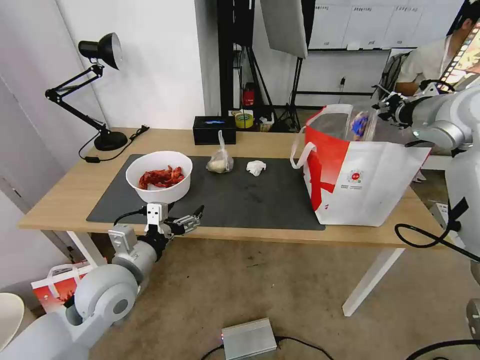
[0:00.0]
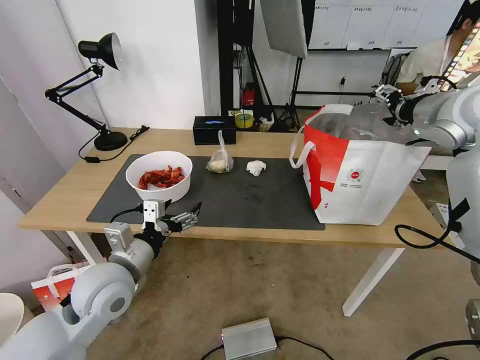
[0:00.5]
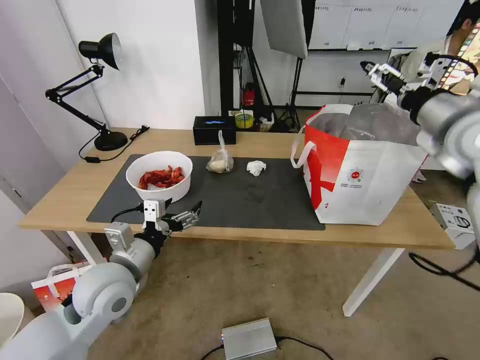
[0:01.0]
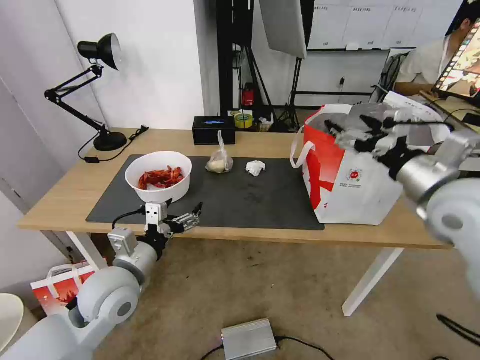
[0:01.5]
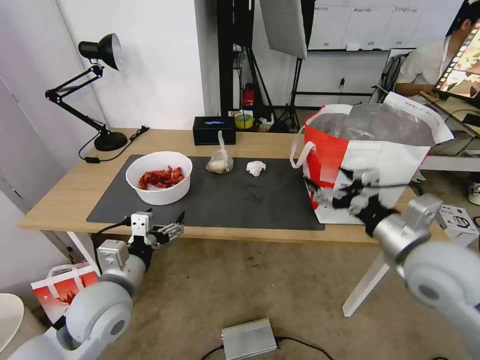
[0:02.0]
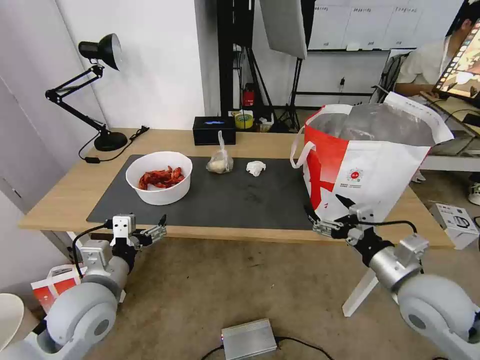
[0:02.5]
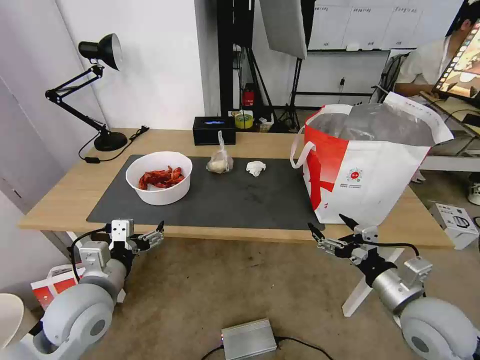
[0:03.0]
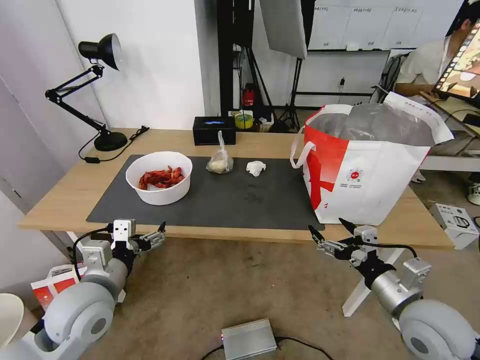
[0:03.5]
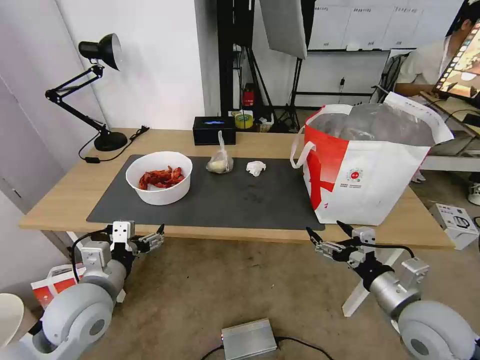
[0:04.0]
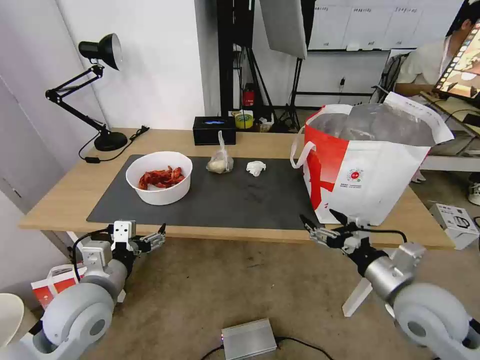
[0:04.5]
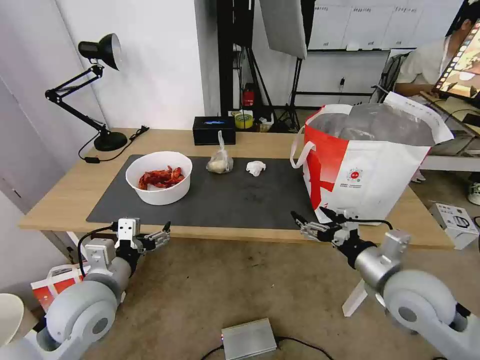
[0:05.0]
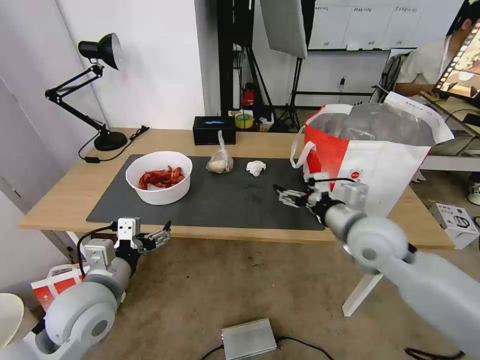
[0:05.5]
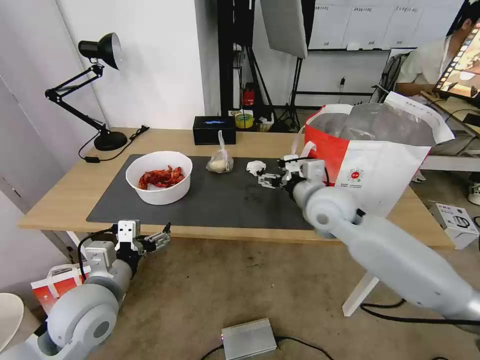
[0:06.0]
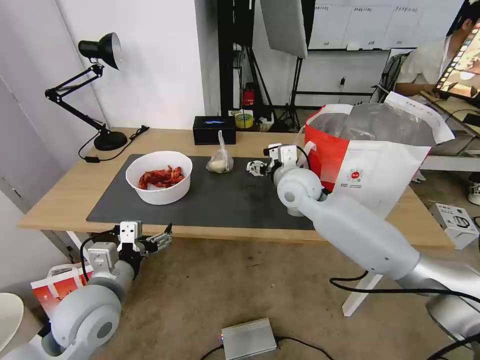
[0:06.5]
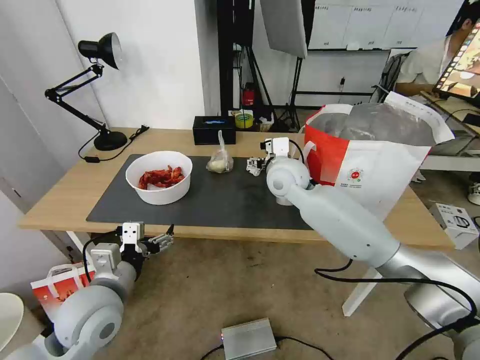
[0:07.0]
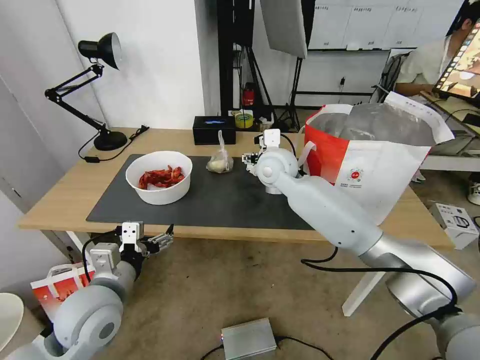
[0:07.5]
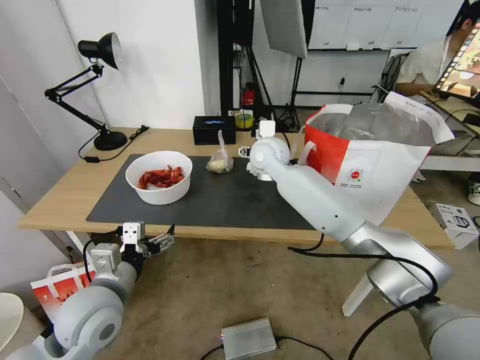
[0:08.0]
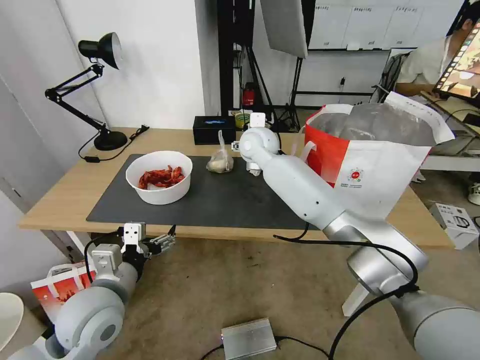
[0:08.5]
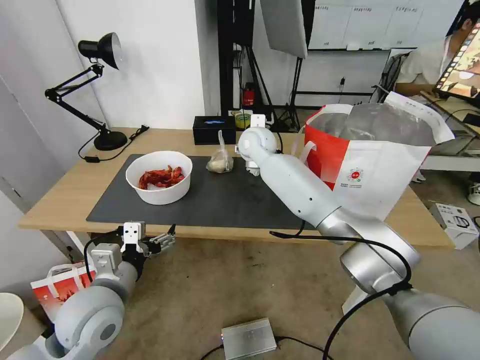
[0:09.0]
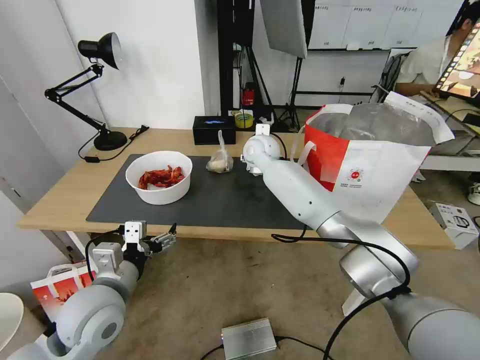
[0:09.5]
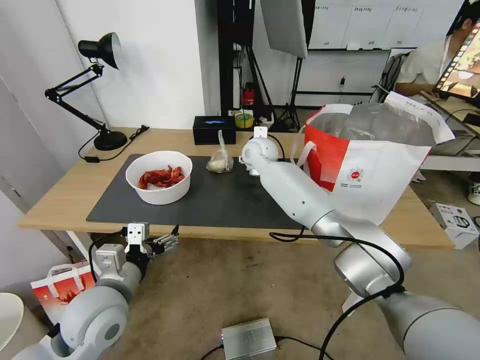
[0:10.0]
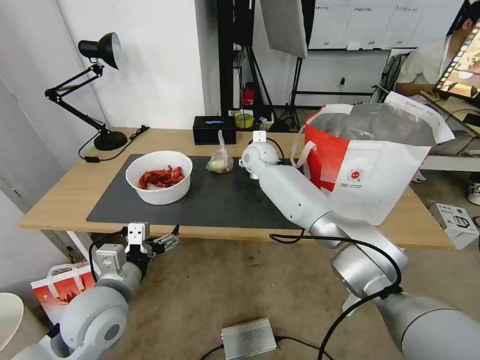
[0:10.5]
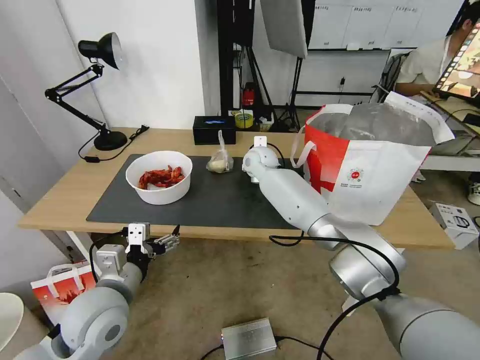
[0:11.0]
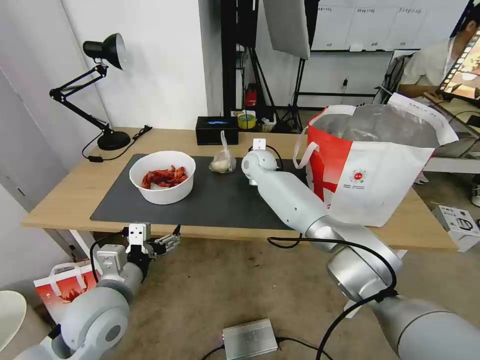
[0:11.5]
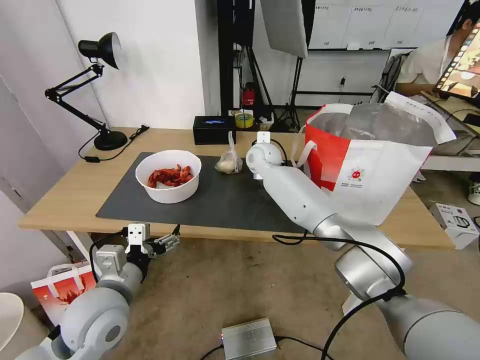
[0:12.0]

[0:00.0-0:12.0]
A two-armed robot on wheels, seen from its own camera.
Task of the whole recording: Pick up the trash from the table and place it into the takeout bag.
0:00.0 to 0:02.0: The right gripper heads backward, downward and to the left, covering roughly 25 cm, and opens up.
0:02.0 to 0:04.0: The right gripper shifts about 15 cm downward and backward.
0:04.0 to 0:06.0: The right gripper travels forward and to the left by some 25 cm.
0:06.0 to 0:08.0: The right gripper moves forward and to the left, some 20 cm.
0:08.0 to 0:10.0: The right gripper heads forward, covering some 5 cm.
0:10.0 to 0:12.0: The right gripper closes its fingers.

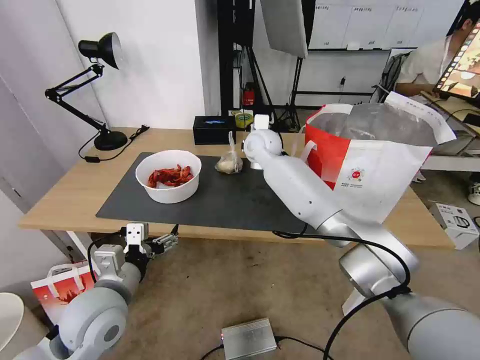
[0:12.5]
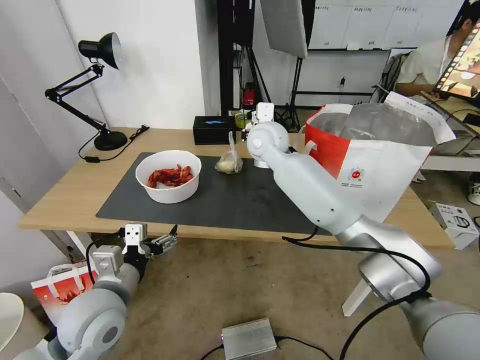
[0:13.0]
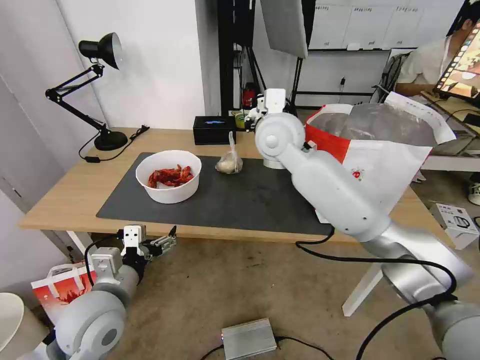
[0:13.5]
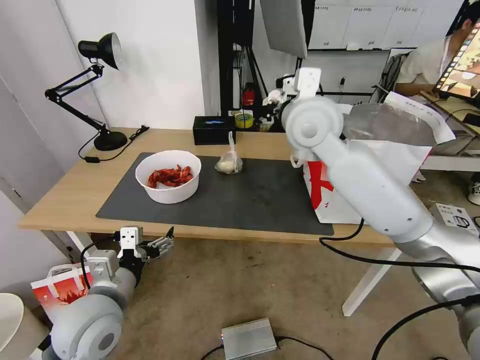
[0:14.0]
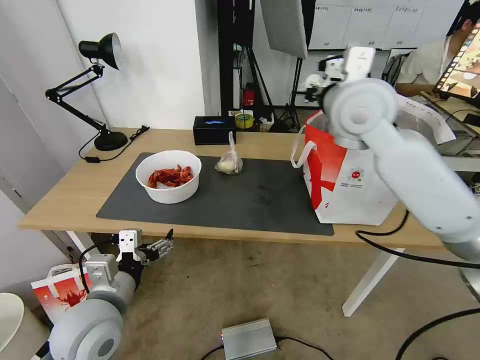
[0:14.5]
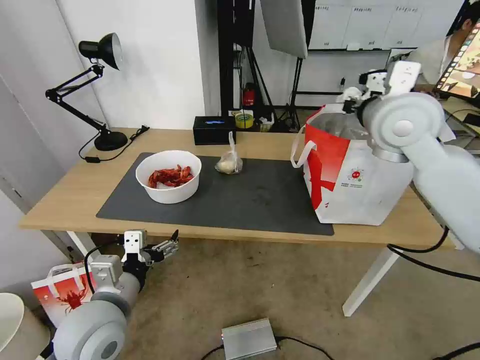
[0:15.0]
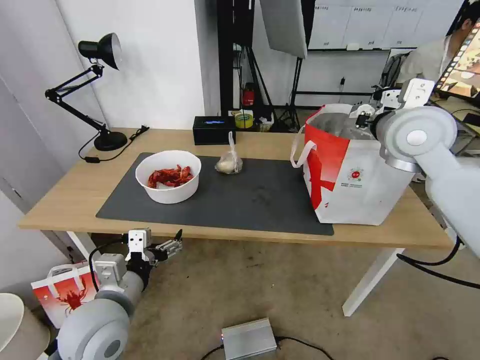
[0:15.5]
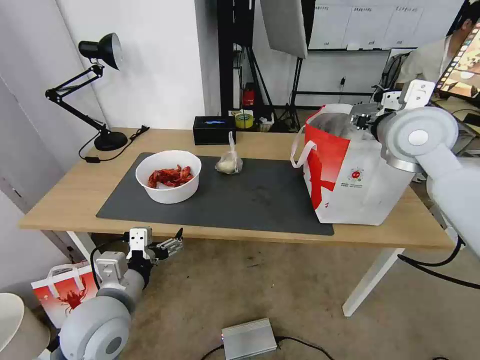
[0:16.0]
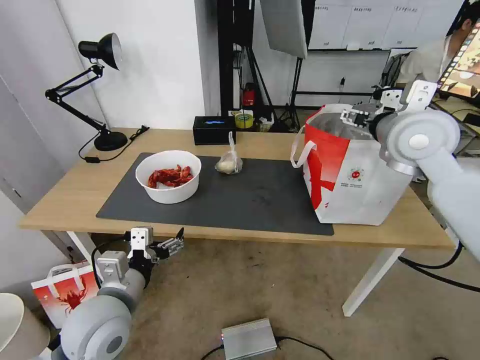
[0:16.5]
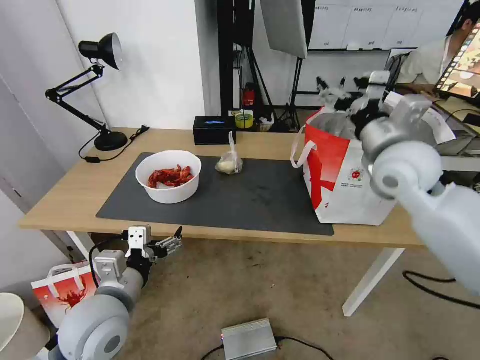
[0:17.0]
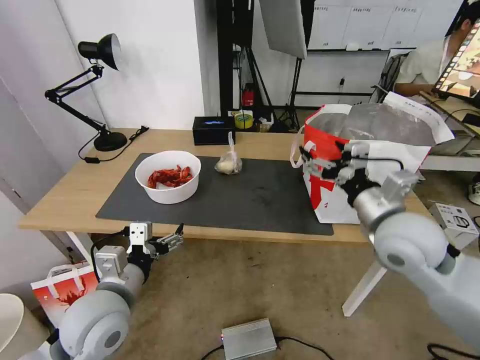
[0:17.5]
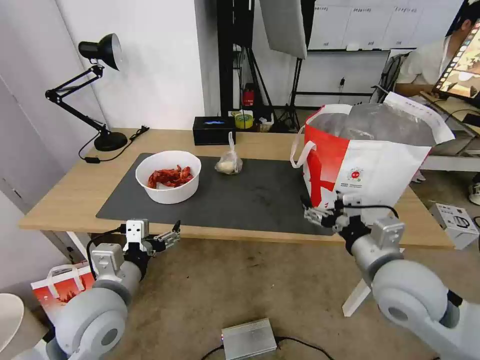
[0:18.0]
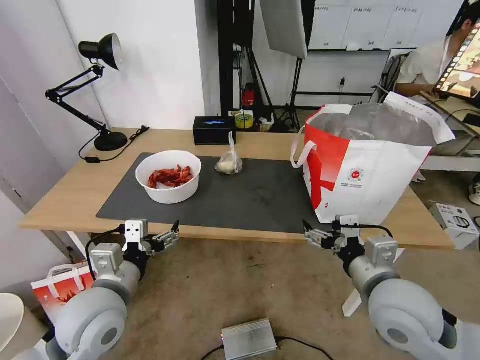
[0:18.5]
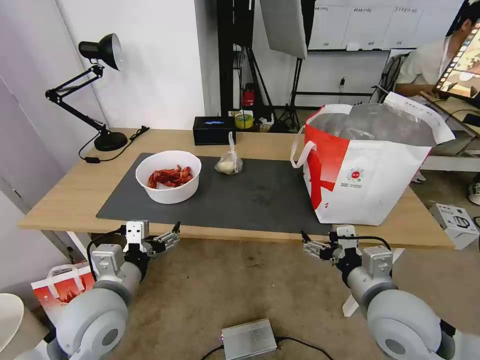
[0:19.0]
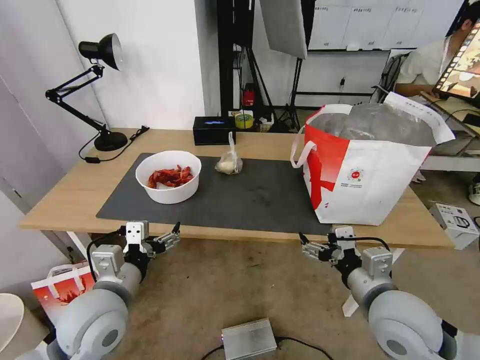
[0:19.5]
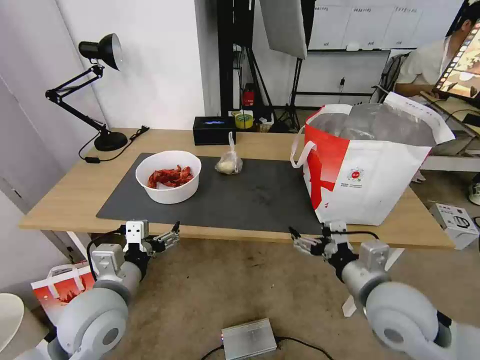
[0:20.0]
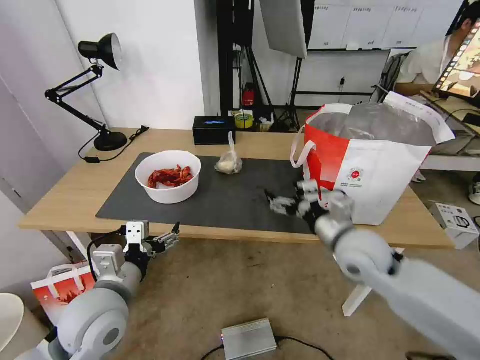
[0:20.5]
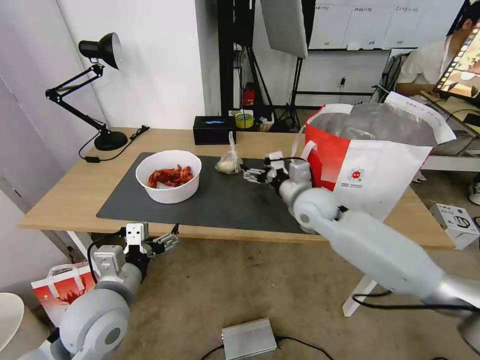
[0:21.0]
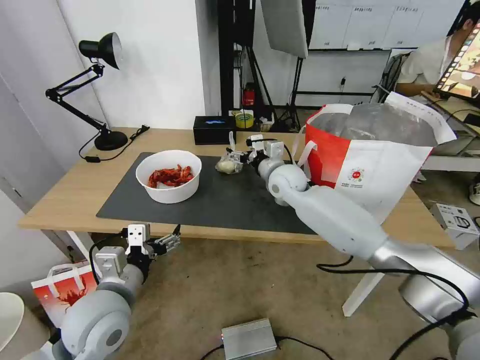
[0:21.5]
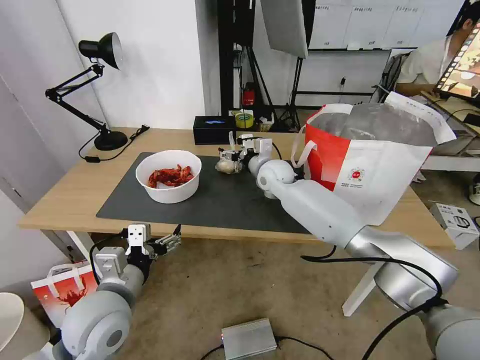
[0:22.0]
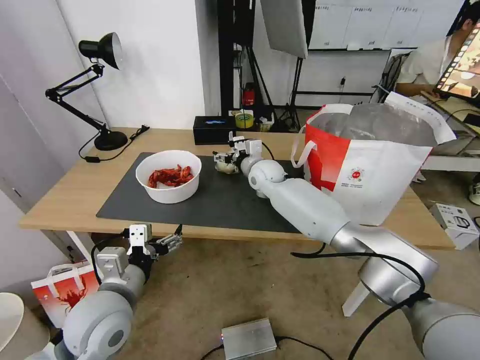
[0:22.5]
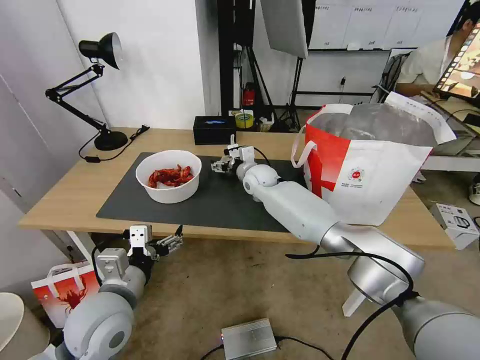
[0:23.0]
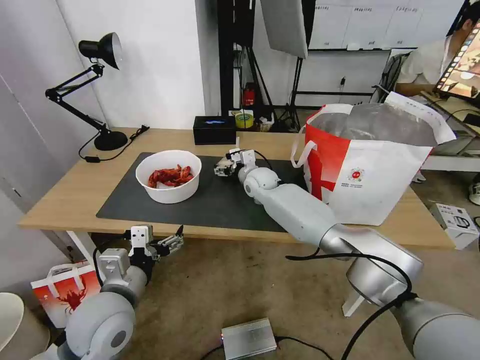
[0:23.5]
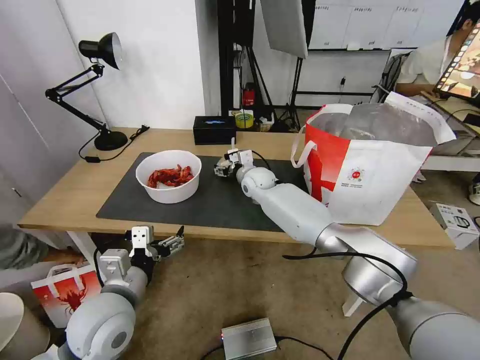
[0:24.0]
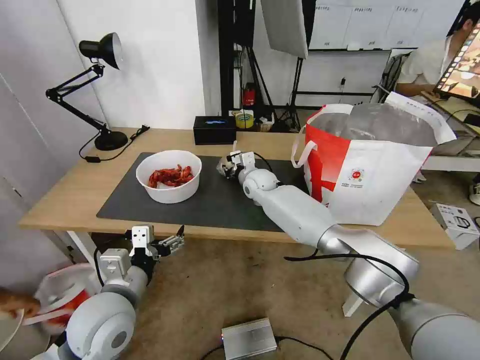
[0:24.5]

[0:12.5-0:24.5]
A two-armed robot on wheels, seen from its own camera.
Task of the whole recording: Pick up the trash from the table and place it into the takeout bag.
0:12.5 to 0:14.5: The right gripper moves upward, backward and to the right, approximately 25 cm.
0:14.5 to 0:16.5: The right gripper moves to the right, approximately 10 cm, and opens its fingers.
0:16.5 to 0:18.5: The right gripper shifts some 30 cm backward and downward.
0:18.5 to 0:20.5: The right gripper travels forward by approximately 10 cm.
0:20.5 to 0:22.5: The right gripper heads forward and to the left, covering roughly 30 cm.
0:22.5 to 0:24.5: The right gripper closes up.

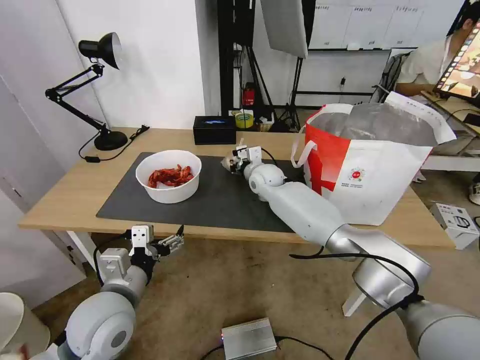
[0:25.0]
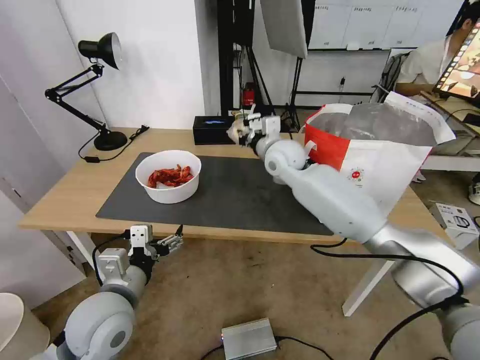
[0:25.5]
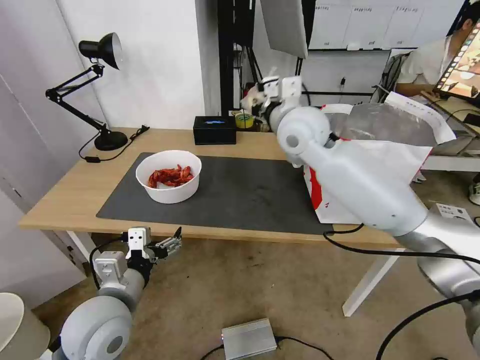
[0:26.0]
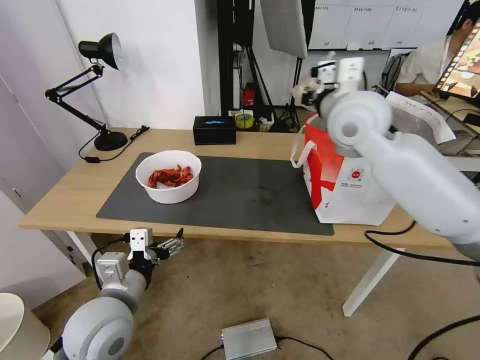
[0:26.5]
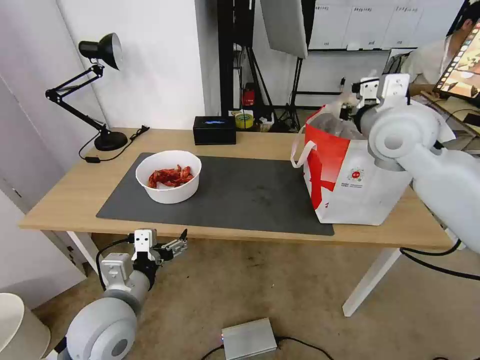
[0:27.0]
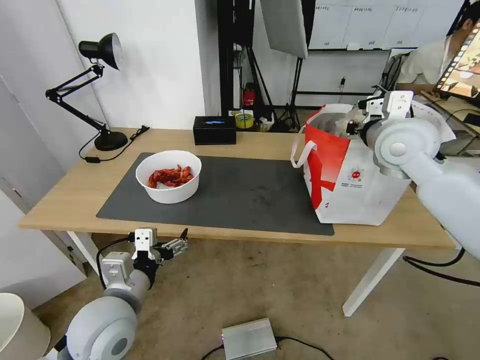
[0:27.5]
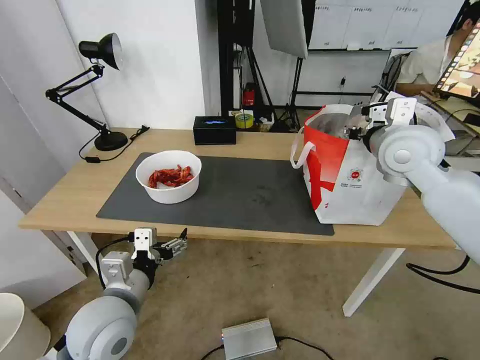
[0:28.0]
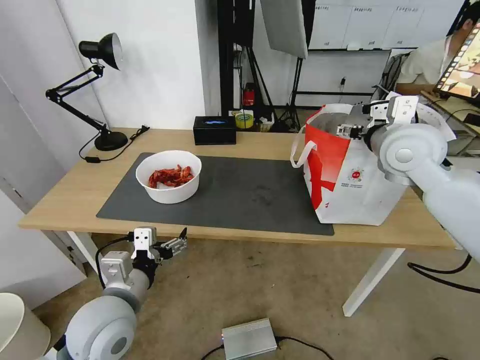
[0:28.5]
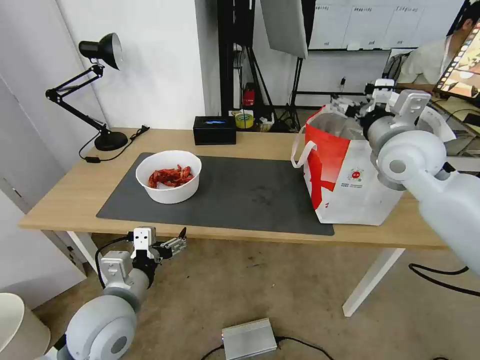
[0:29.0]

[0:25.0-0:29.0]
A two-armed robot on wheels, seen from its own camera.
Task of the whole recording: Pick up the trash from the table and place it into the takeout bag.
0:25.0 to 0:27.0: The right gripper moves upward, to the right and backward, some 35 cm.
0:27.0 to 0:29.0: The right gripper opens up.
